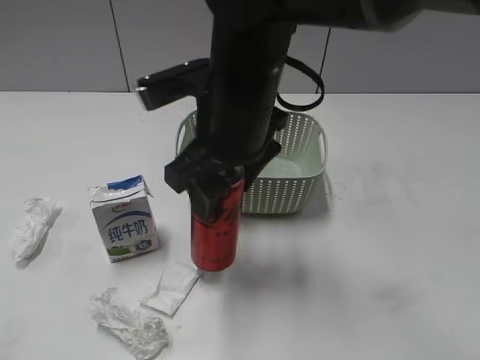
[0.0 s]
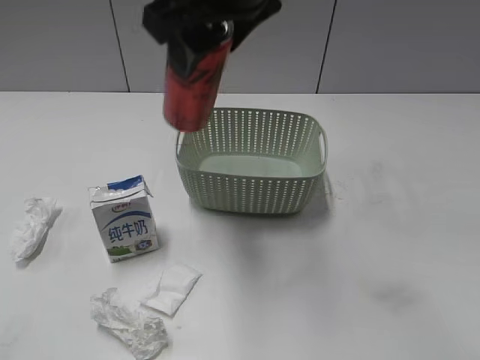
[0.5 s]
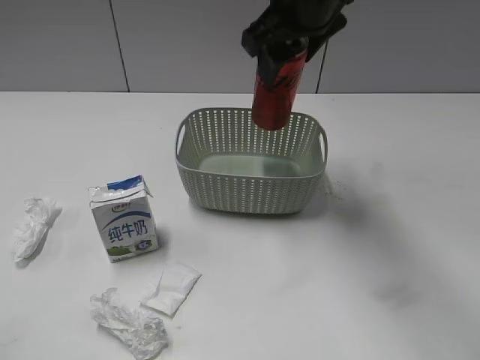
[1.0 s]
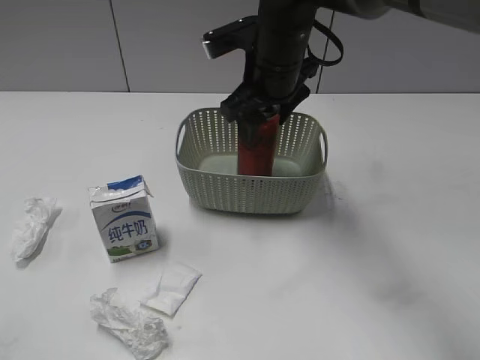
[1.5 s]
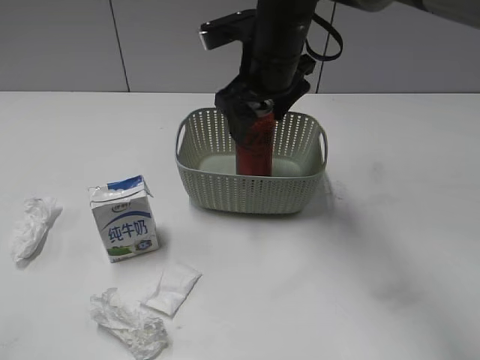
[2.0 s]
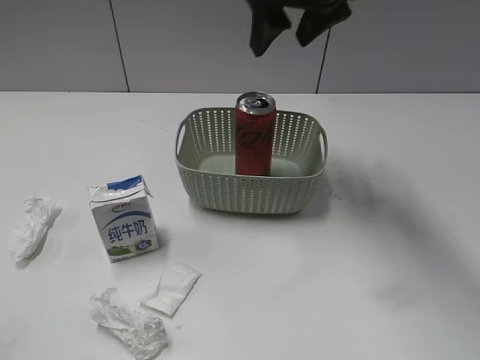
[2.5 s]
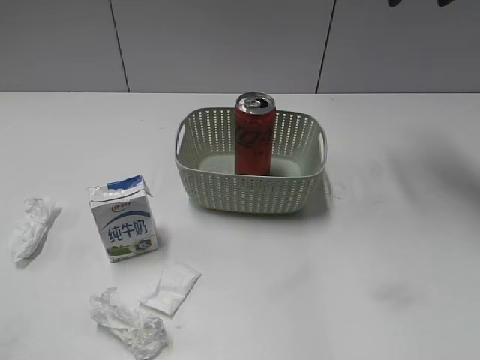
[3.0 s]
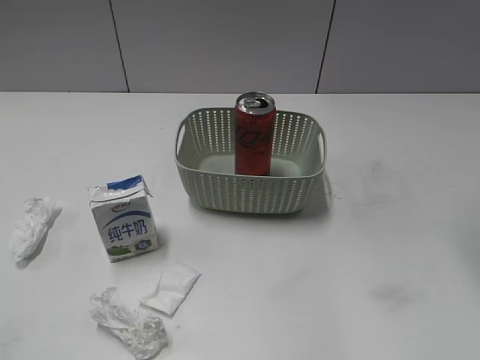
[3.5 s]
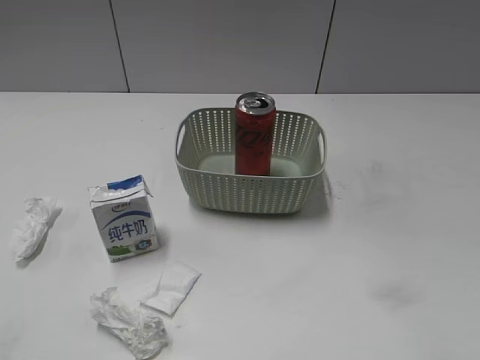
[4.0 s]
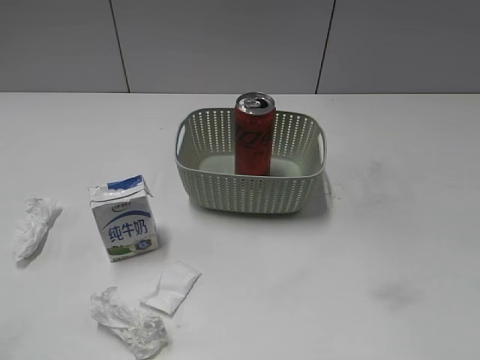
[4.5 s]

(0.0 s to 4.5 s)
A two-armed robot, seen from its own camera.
Step, 0.0 s - 2.0 s: Place the cola can in the basket with right gripper.
0.0 s - 2.0 s: The right gripper heads forward, covering some 10 cm, travels upward and back again, about 10 cm each way, and opens its fingers.
2.0 s - 4.5 s: The right gripper moves backward and to the right, approximately 40 cm, and closes its fingers.

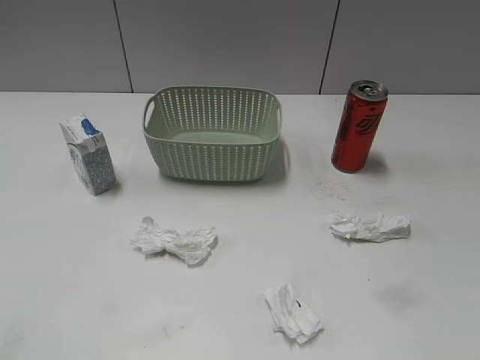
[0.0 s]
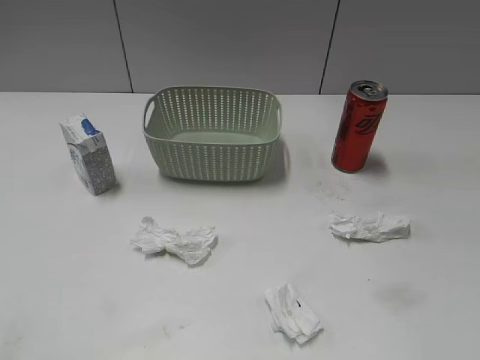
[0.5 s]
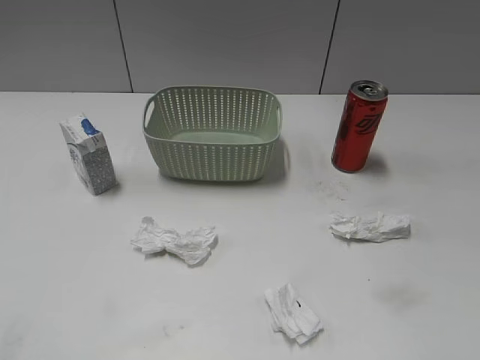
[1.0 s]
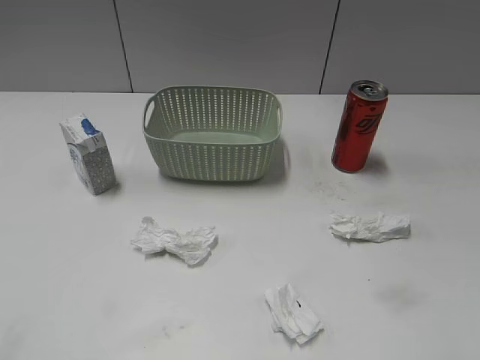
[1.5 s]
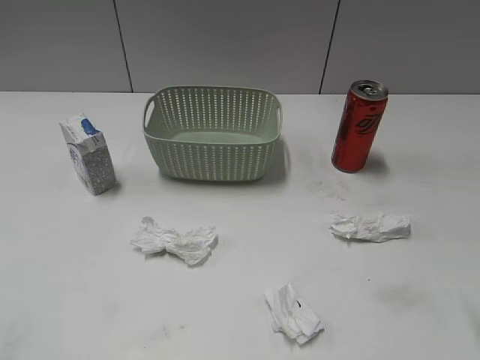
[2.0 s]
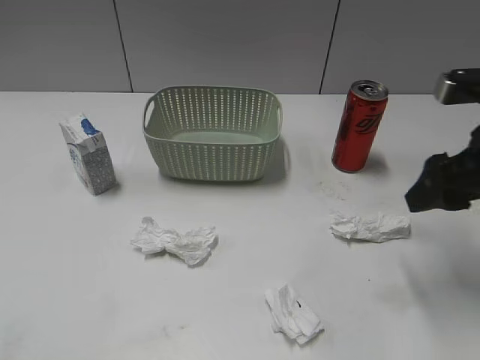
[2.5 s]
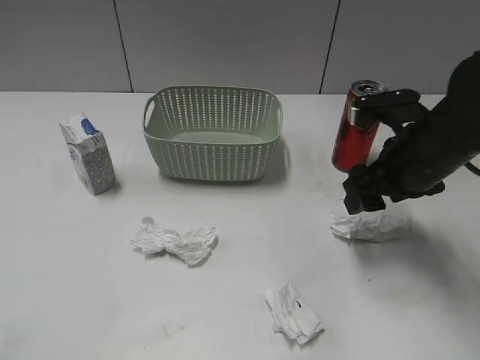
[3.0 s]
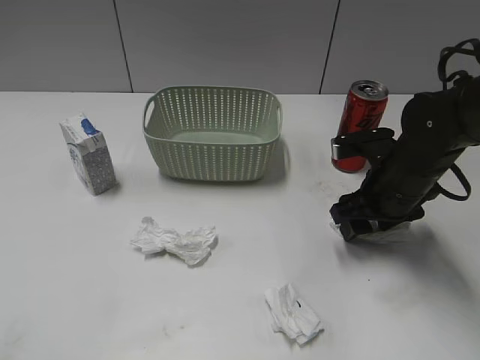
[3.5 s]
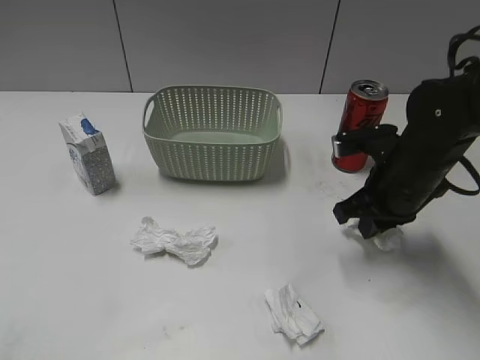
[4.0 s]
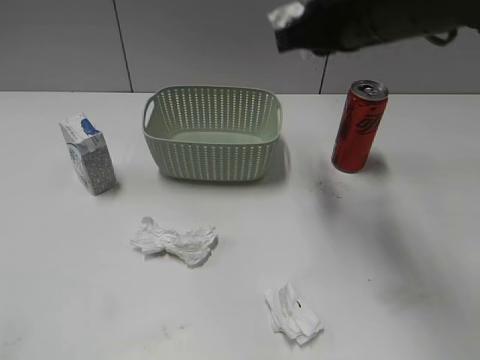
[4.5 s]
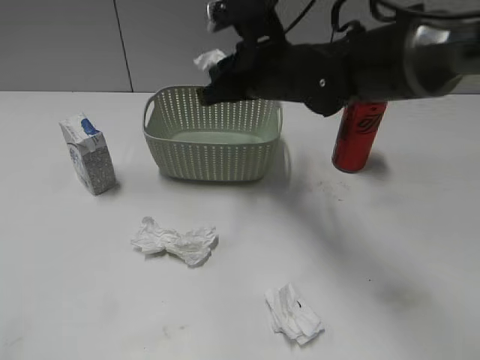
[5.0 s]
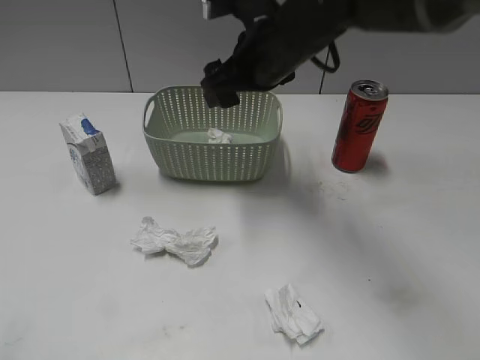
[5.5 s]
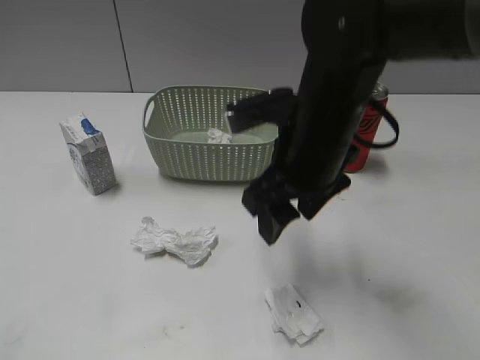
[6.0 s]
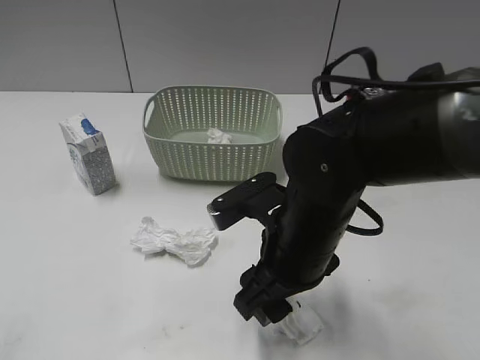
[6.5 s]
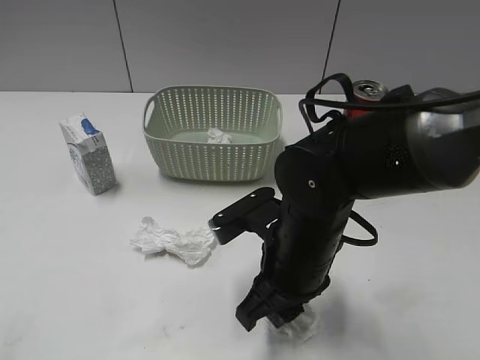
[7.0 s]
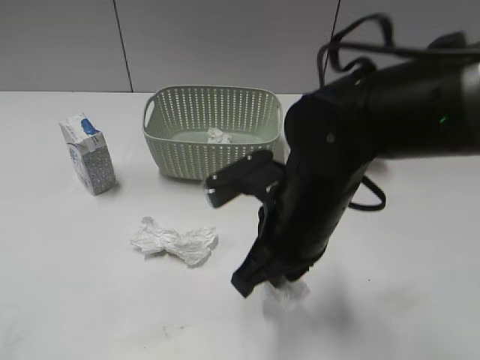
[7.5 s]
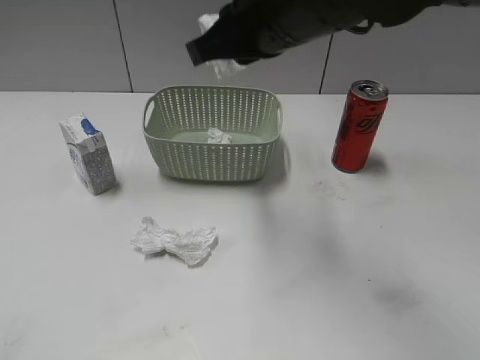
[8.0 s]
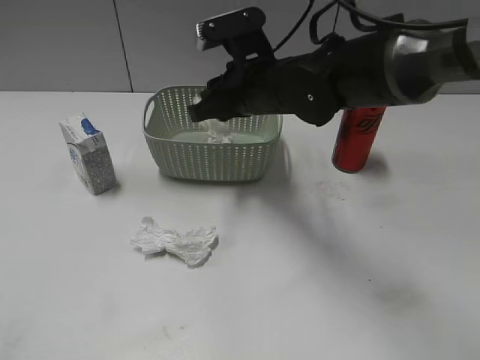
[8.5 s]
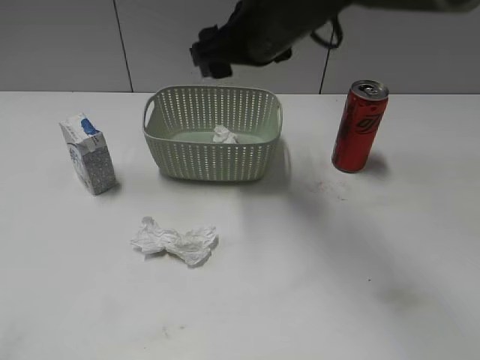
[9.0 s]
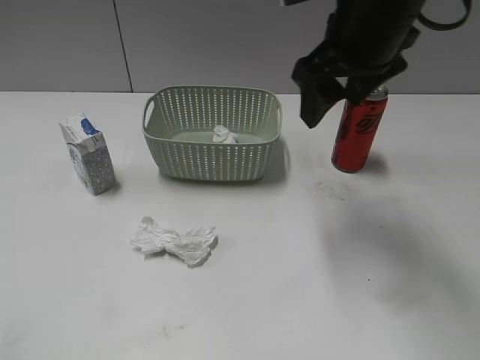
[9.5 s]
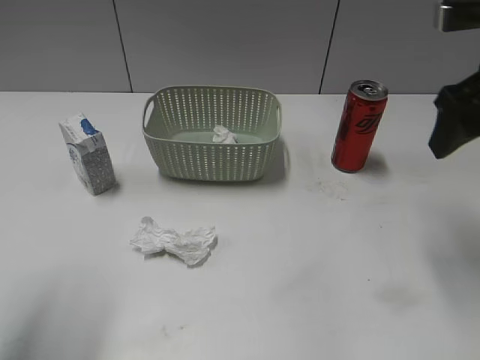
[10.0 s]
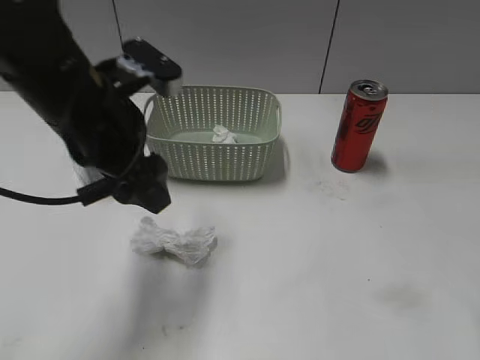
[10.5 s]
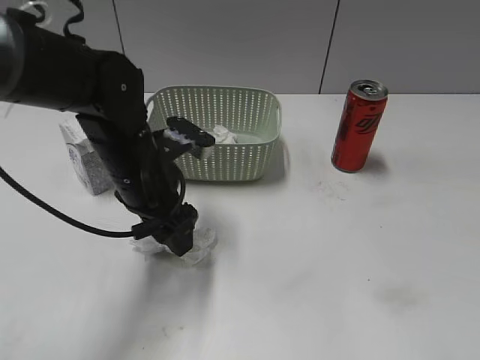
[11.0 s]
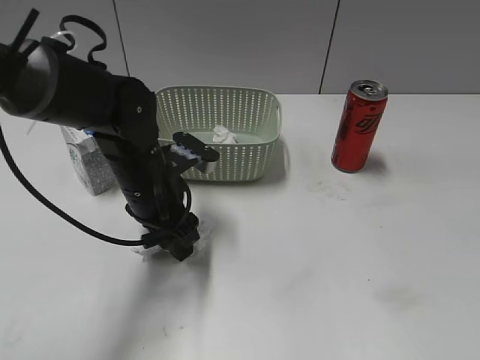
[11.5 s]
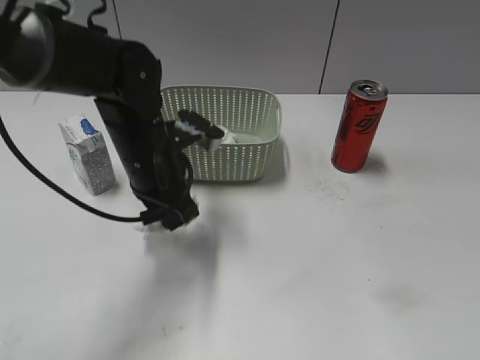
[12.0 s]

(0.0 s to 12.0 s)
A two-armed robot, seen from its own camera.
Step, 2.5 s - 3.5 s: Grasp the waste paper with right gripper.
Step, 4.0 s - 5.0 s: Place the waste paper in the basket with right gripper.
Step, 5.5 s - 7.0 s: Grasp the waste paper with right gripper.
Step, 7.5 s - 8.5 s: Place the waste paper in the basket with right gripper.
Step, 9.0 s - 11.5 s: Grasp the waste paper with left gripper.
2.0 s - 4.0 s: The right gripper goes roughly 20 cm forward, downward and to the left, and closes up.
4.0 s - 6.0 s: The right gripper swings up and down, approximately 15 cm each way, with 3 reversals, and opens its fingers.
6.0 s - 8.0 s: The right gripper goes about 10 cm upward, and closes its fingers.
8.0 s - 10.0 s: The right gripper is displaced to the right by approximately 20 cm, and opens, while the left gripper is displaced forward and to the right by some 20 cm.
10.0 s - 12.0 s: The right gripper moves backward, approximately 30 cm. The left gripper is displaced to the right, downward and forward by some 25 cm, and closes up.

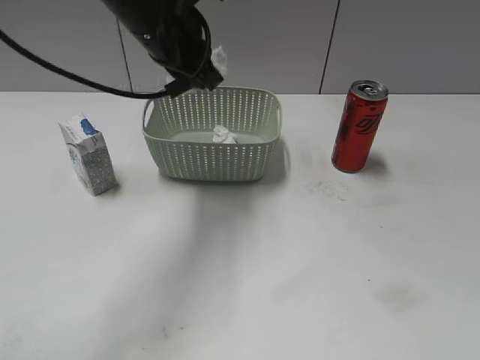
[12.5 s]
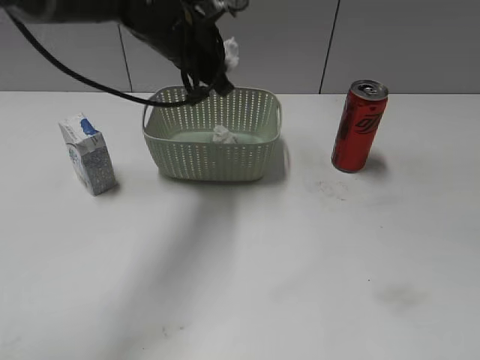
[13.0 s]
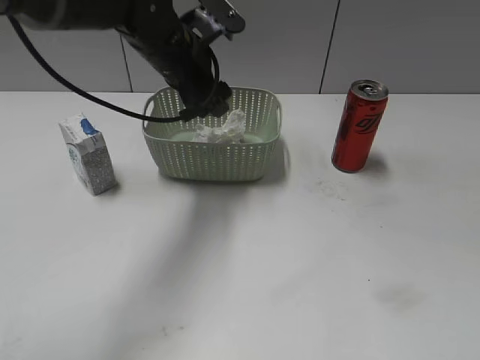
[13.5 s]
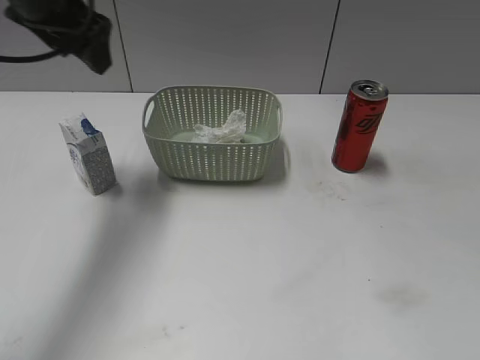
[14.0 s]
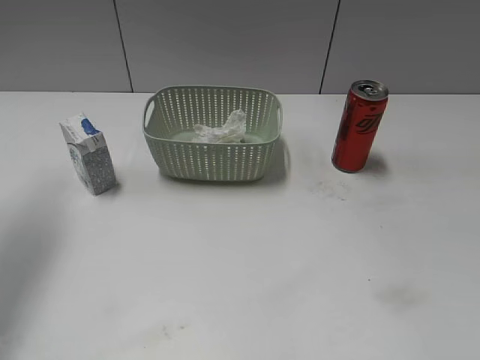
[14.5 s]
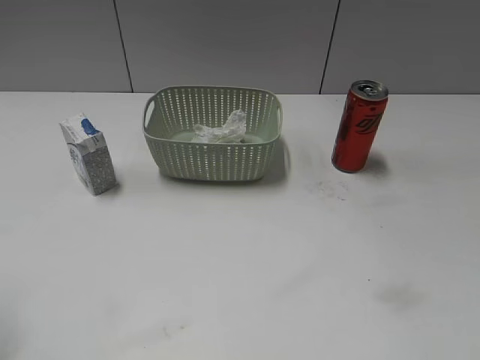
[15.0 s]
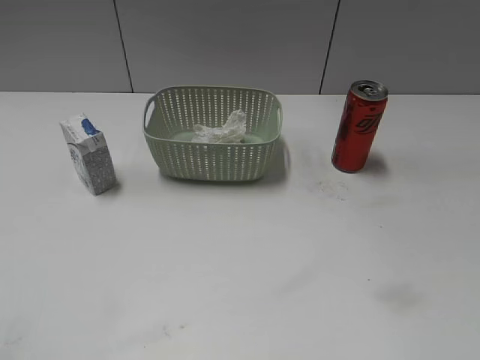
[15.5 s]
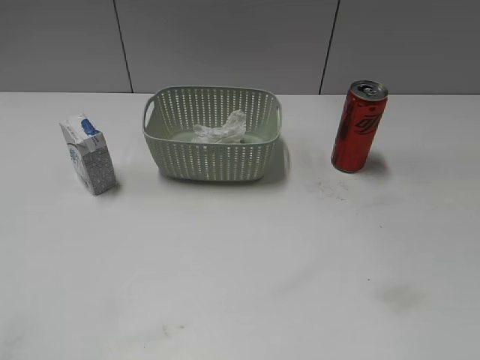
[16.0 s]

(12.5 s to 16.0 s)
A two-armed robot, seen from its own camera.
Step, 12.5 s - 13.5 s: Place the waste paper in the basket with left gripper.
12.5 s - 14.5 s: The left gripper travels to the left by about 25 cm, and opens up.
14.5 s - 16.0 s: The left gripper goes some 30 cm backward.
